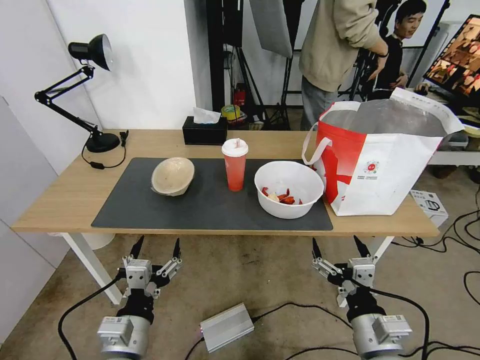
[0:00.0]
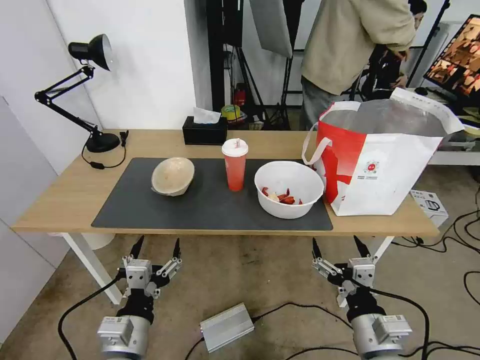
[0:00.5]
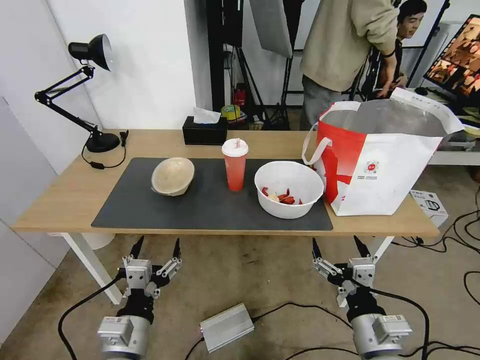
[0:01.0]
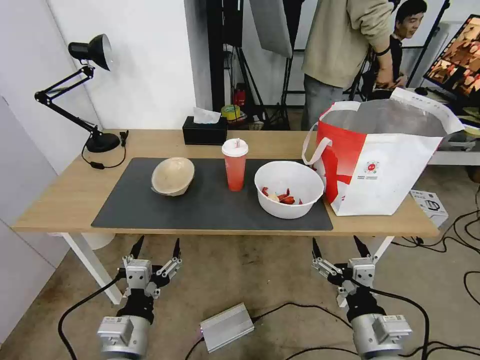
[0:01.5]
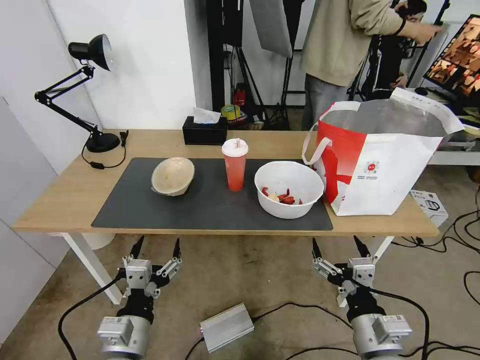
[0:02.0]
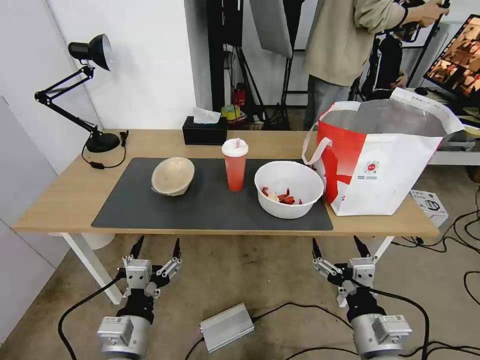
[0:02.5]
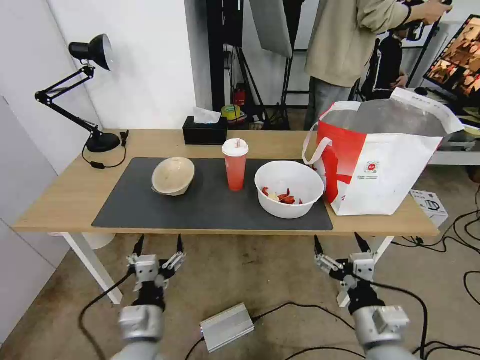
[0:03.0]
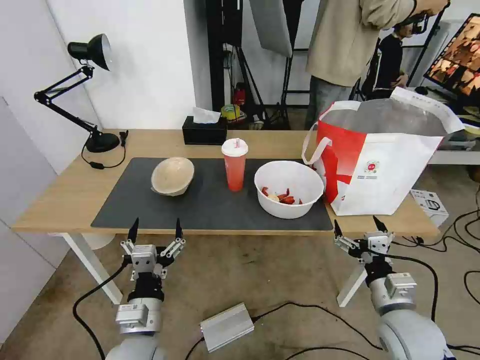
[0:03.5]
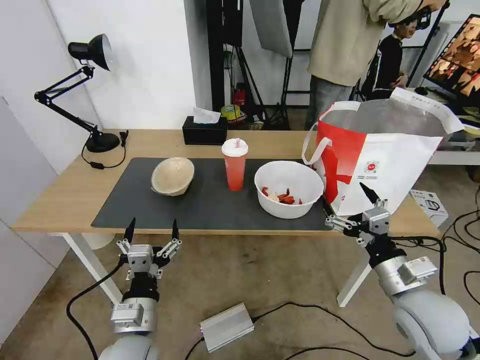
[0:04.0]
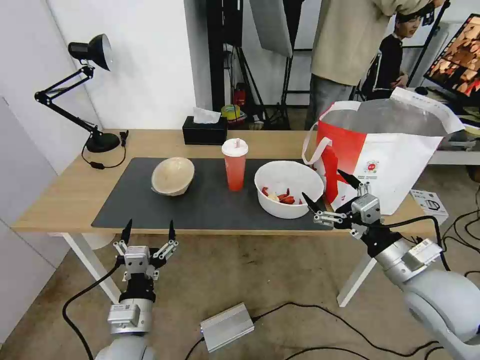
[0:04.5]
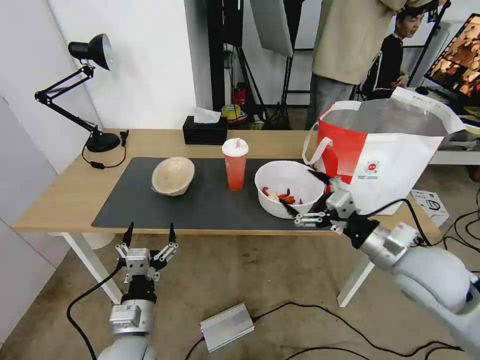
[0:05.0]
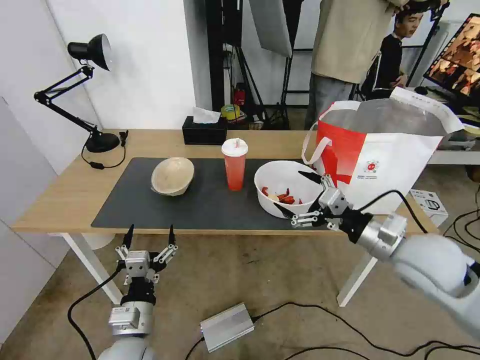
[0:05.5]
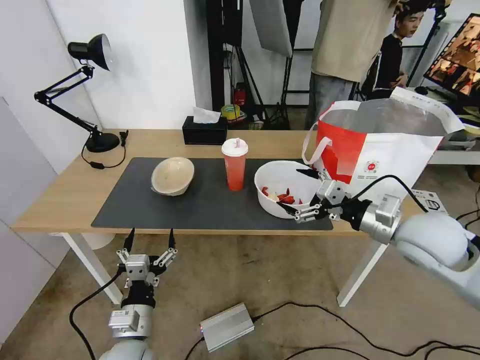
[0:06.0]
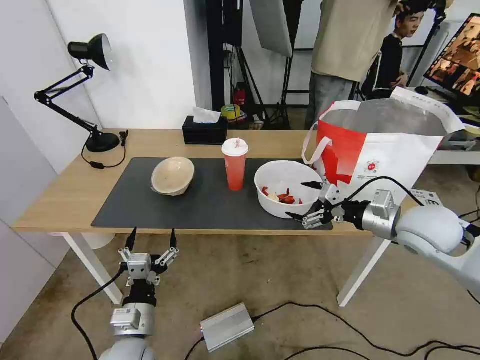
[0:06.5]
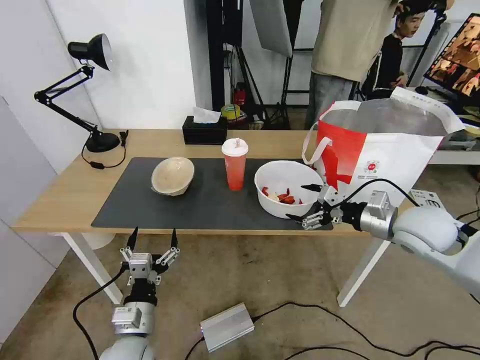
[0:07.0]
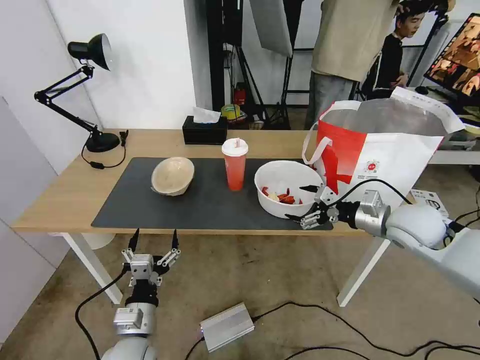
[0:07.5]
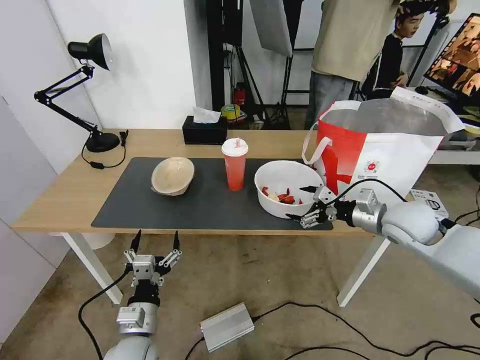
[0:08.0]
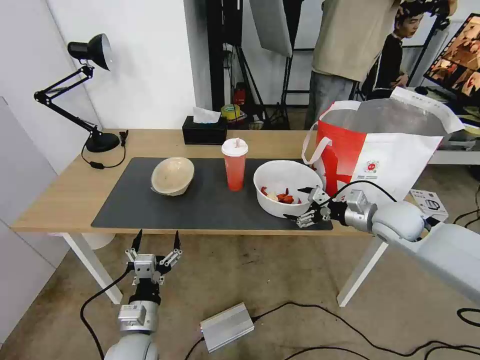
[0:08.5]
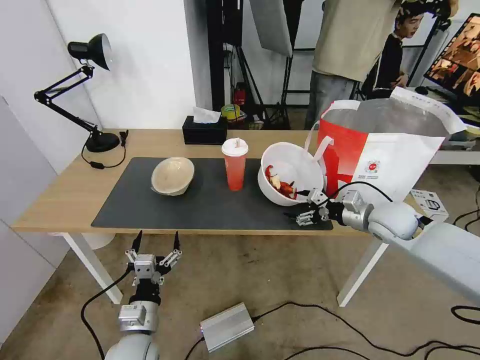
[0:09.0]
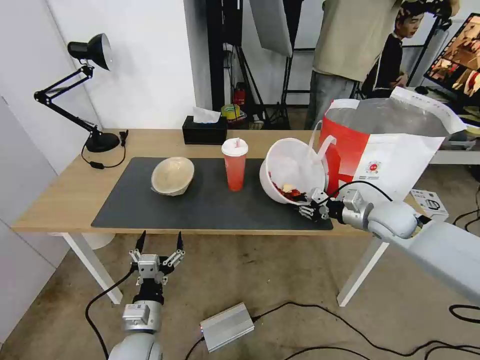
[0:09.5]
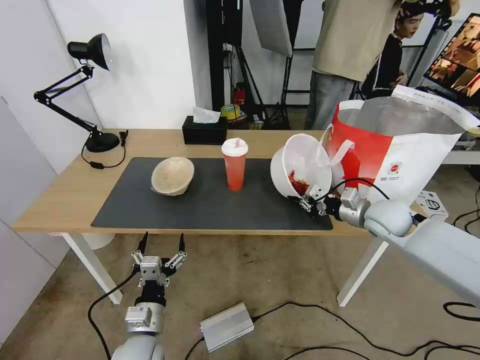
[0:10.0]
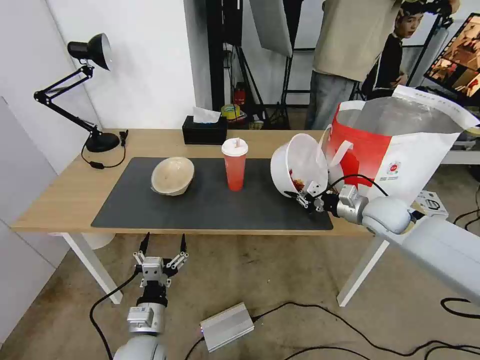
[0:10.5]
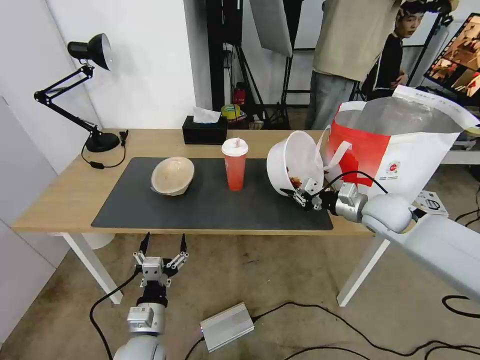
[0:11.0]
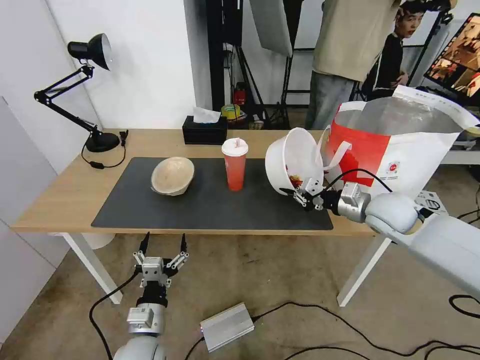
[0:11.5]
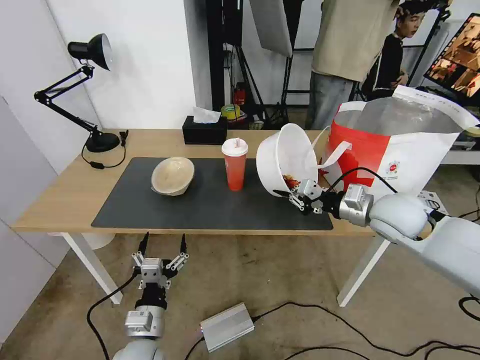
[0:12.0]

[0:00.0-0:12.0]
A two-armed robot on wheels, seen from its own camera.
Task of the whole recording: Pick up the trash from the table and place it into the takeout bag.
0:02.0 to 0:04.0: The right gripper is displaced forward and to the right by roughly 10 cm.
0:04.0 to 0:06.0: The right gripper shifts approximately 15 cm forward and upward.
0:06.0 to 0:08.0: The right gripper moves forward, approximately 10 cm.
0:08.0 to 0:10.0: The right gripper shifts by some 5 cm, and closes its fingers.
0:10.0 to 0:12.0: The right gripper is displaced upward by approximately 5 cm.

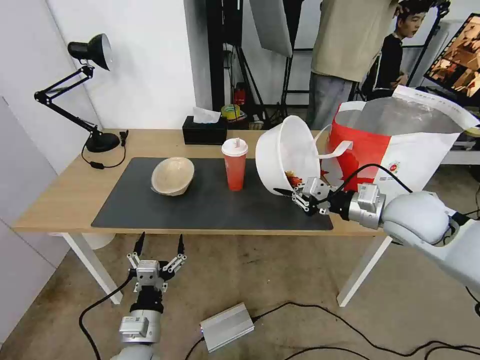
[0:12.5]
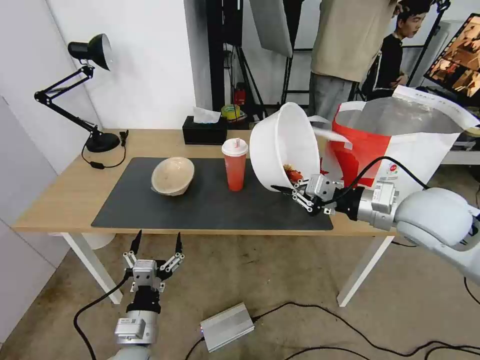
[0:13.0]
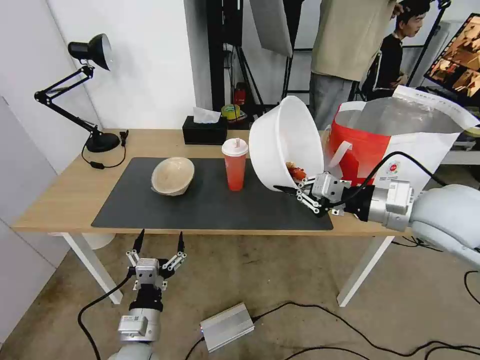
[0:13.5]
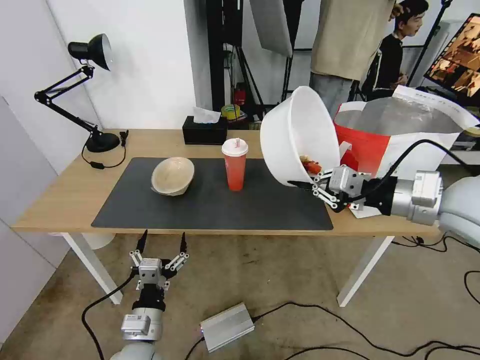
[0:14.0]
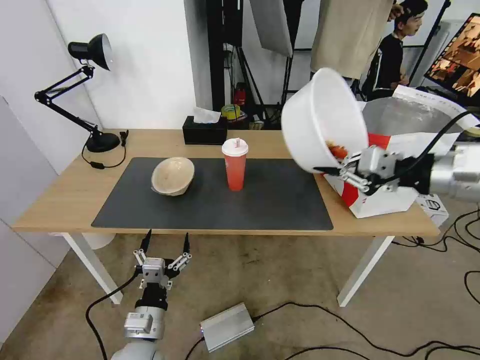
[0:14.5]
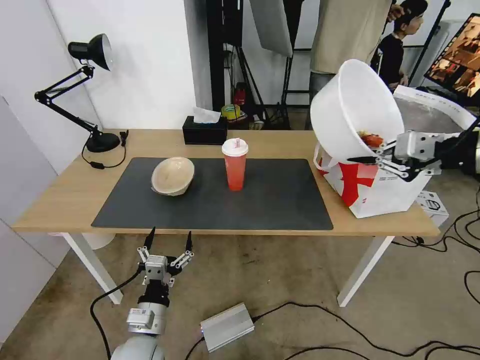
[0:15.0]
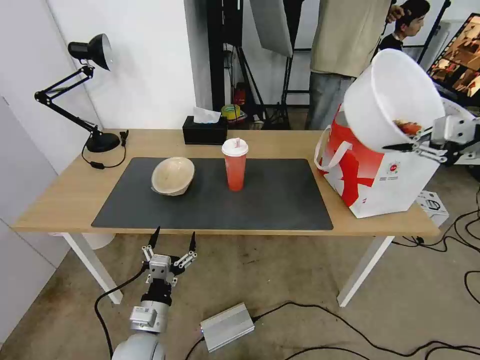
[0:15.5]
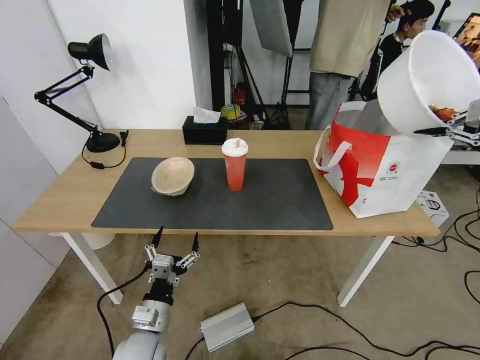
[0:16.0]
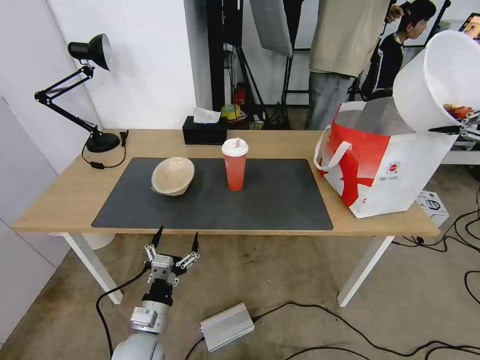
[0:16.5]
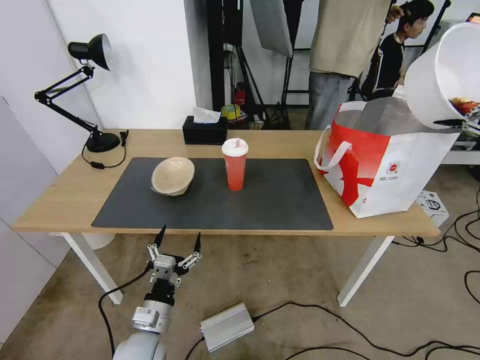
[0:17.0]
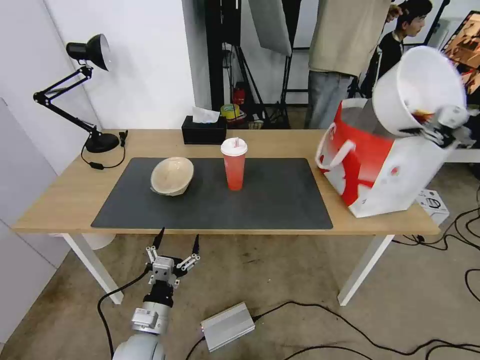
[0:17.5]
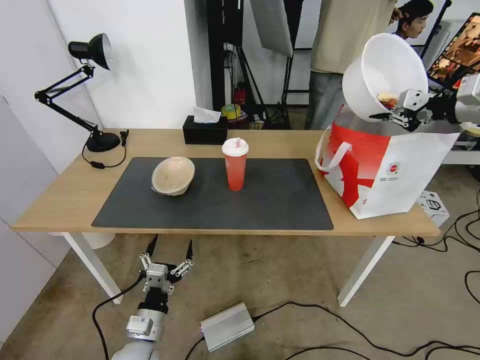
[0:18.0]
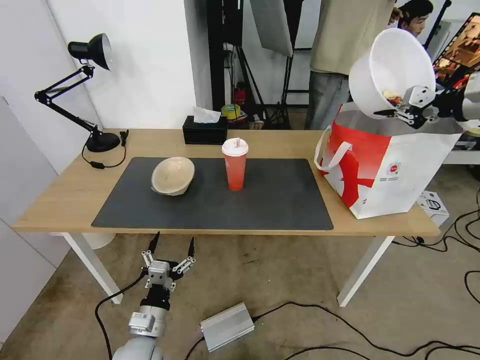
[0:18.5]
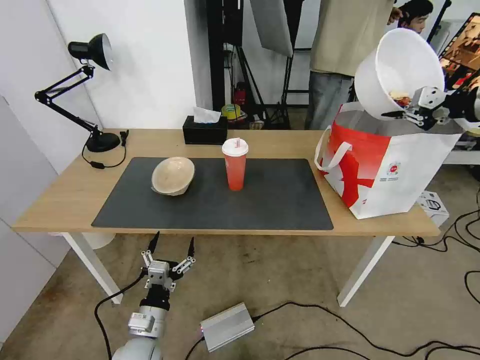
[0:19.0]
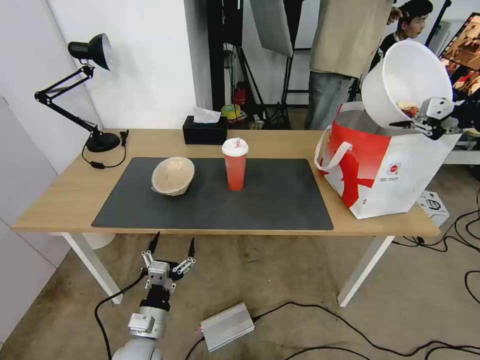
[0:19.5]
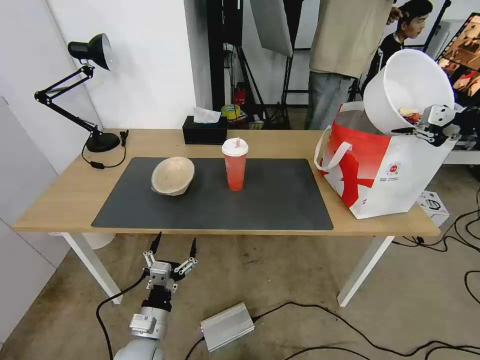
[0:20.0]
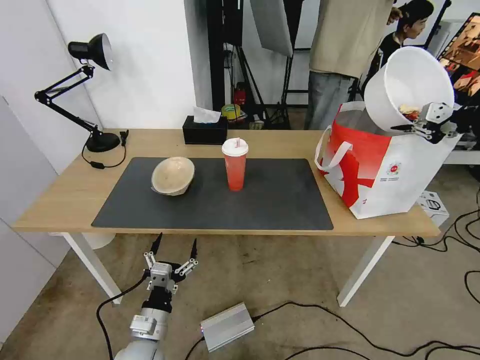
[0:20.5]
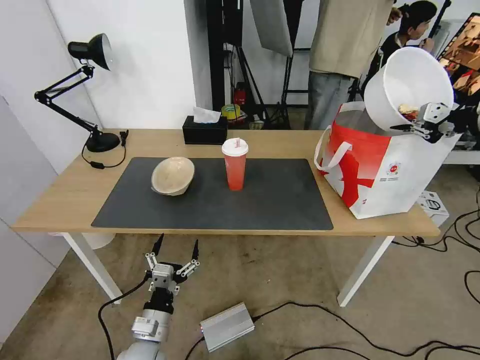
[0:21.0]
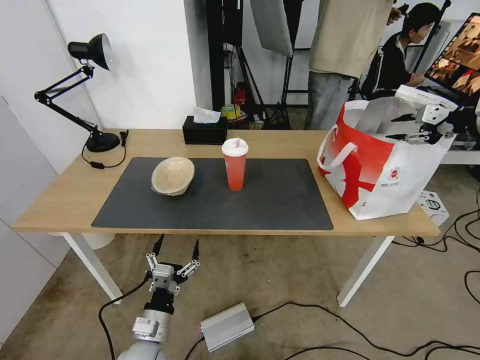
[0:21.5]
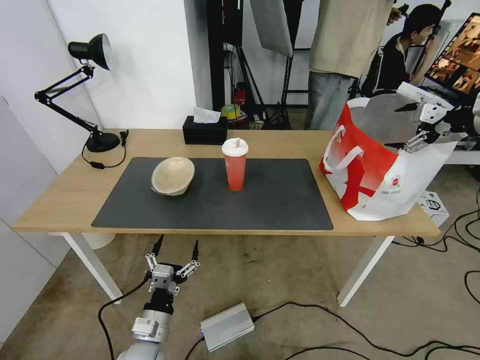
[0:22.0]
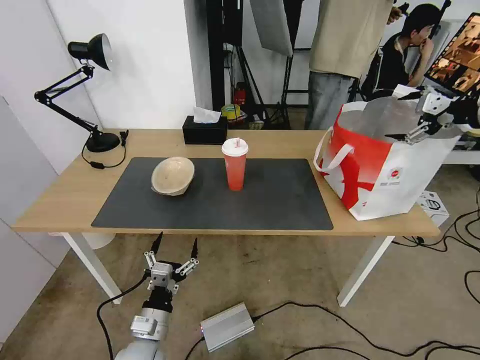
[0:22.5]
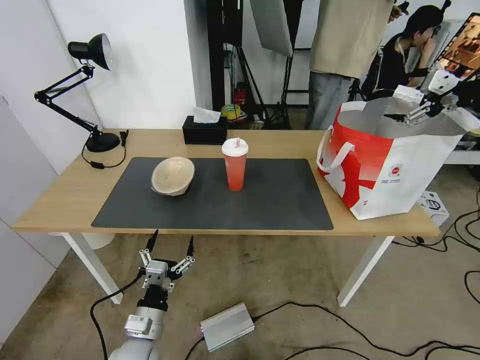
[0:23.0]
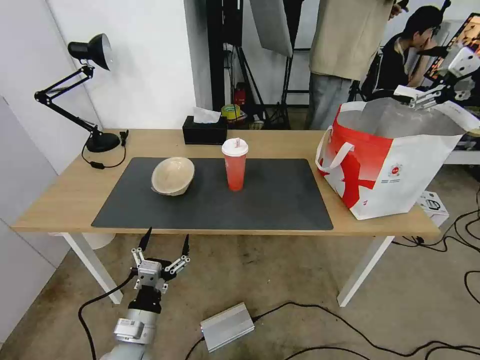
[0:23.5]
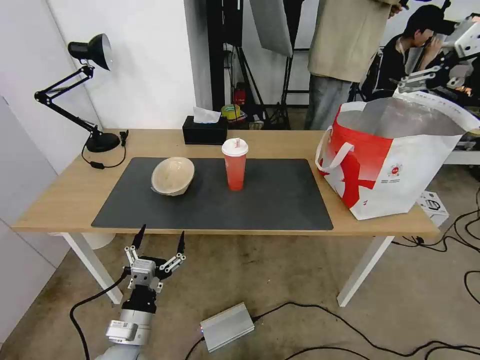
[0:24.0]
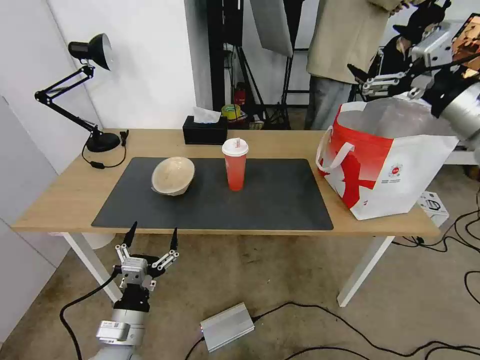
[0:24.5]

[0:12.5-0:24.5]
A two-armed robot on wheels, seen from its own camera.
Task of the whole recording: Pick up the trash from the table and place it into the takeout bag.
0:12.5 to 0:14.5: The right gripper heads upward and to the right, covering some 15 cm.
0:14.5 to 0:16.5: The right gripper is displaced to the right and upward by roughly 20 cm.
0:16.5 to 0:18.5: The right gripper shifts approximately 10 cm forward.
0:18.5 to 0:20.5: There are only small adjustments of the grippers.
0:20.5 to 0:22.5: The right gripper opens its fingers.
0:22.5 to 0:24.5: The left gripper is displaced upward by some 5 cm, while the right gripper heads to the left and backward, covering about 15 cm.

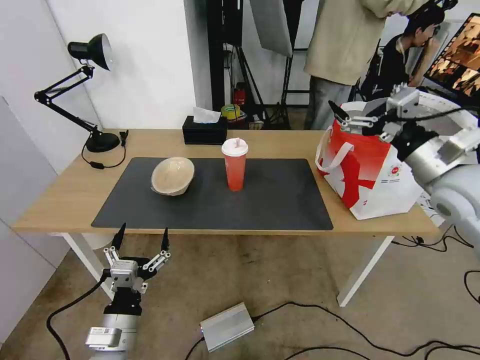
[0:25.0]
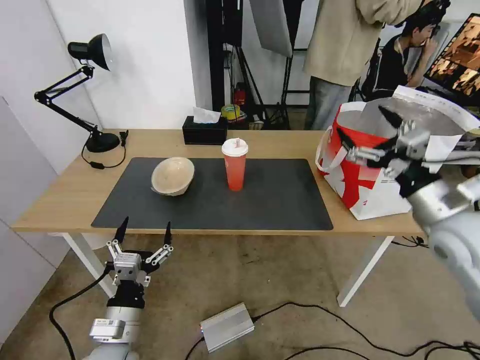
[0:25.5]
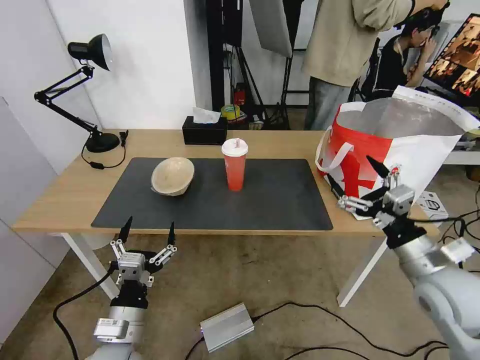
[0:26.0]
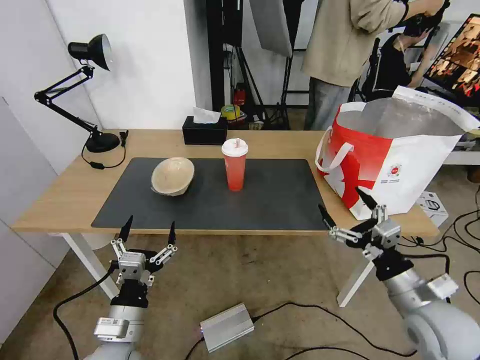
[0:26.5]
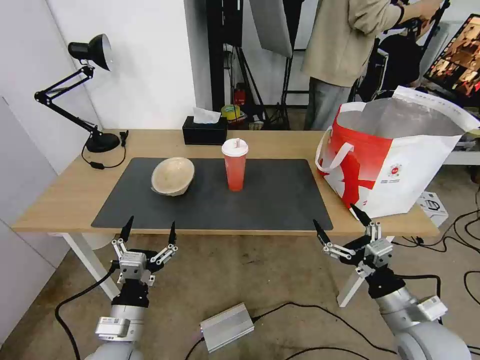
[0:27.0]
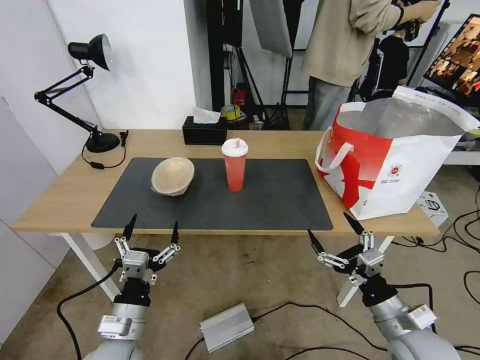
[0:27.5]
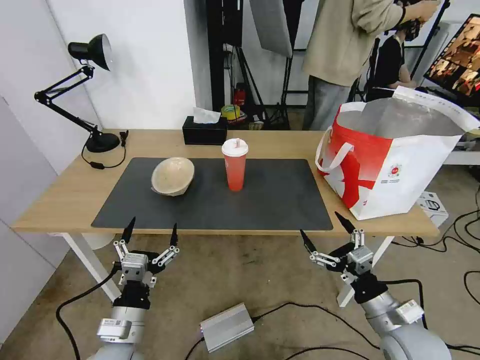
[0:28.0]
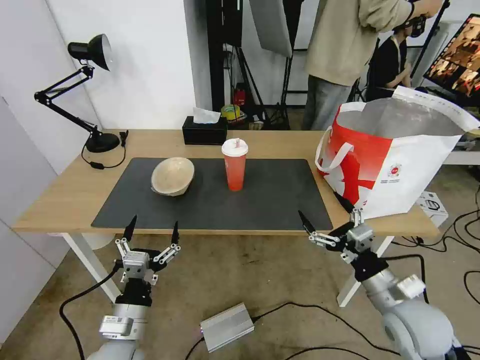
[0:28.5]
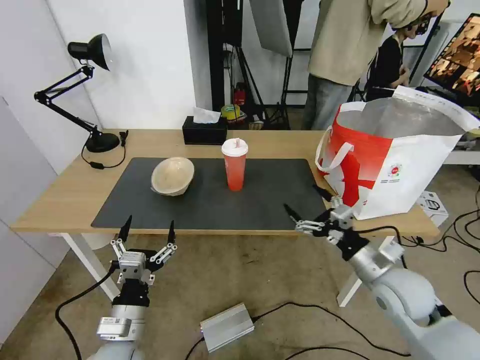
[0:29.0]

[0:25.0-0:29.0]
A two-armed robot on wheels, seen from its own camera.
Task of the whole recording: Pick up the trash from the table and place it into the takeout bag.
0:25.0 to 0:27.0: The right gripper is displaced downward and backward by approximately 30 cm.
0:27.0 to 0:29.0: The right gripper is displaced forward by roughly 10 cm.
